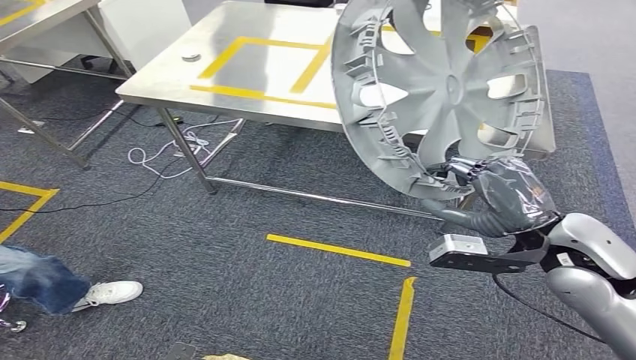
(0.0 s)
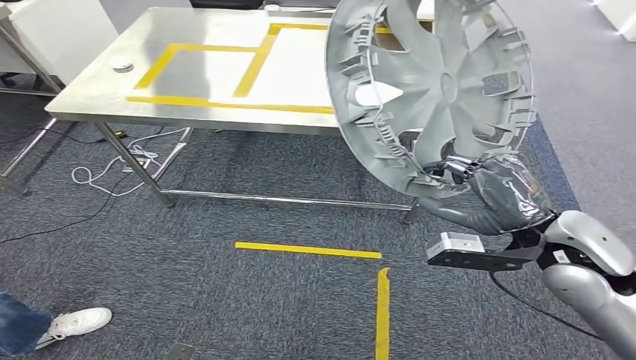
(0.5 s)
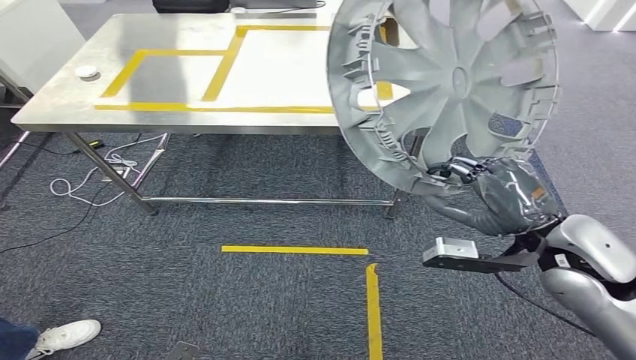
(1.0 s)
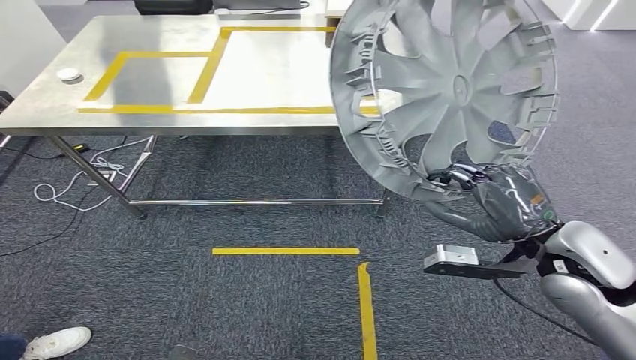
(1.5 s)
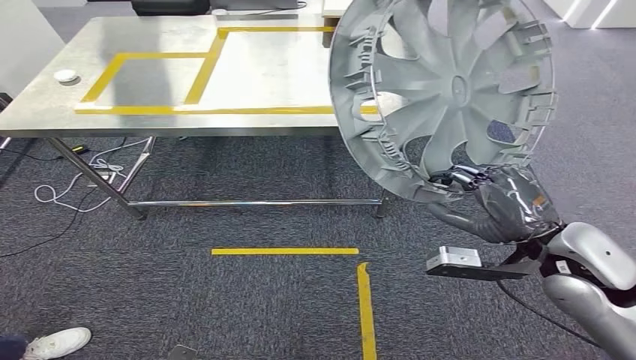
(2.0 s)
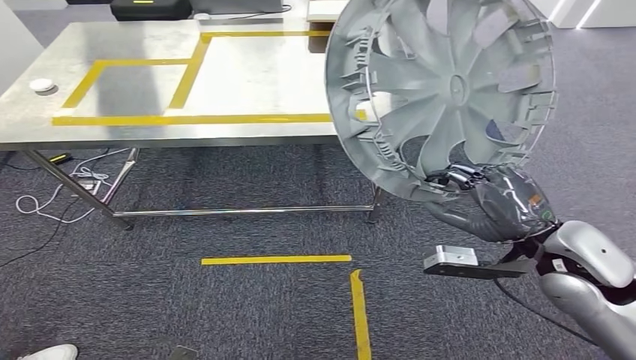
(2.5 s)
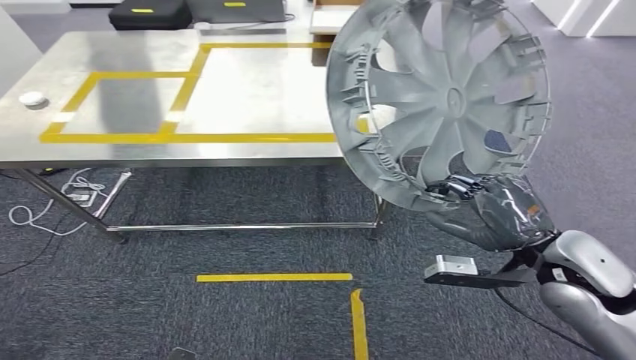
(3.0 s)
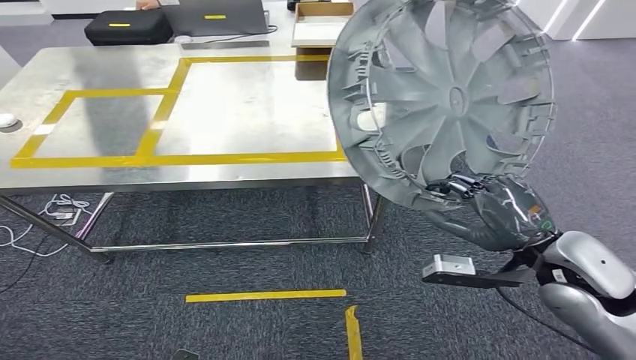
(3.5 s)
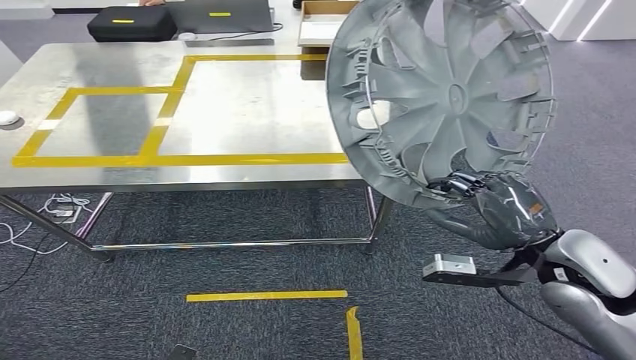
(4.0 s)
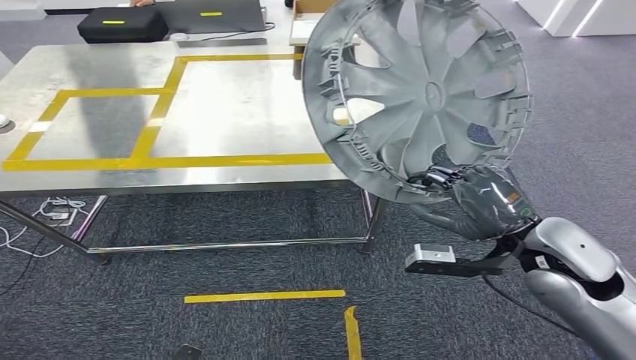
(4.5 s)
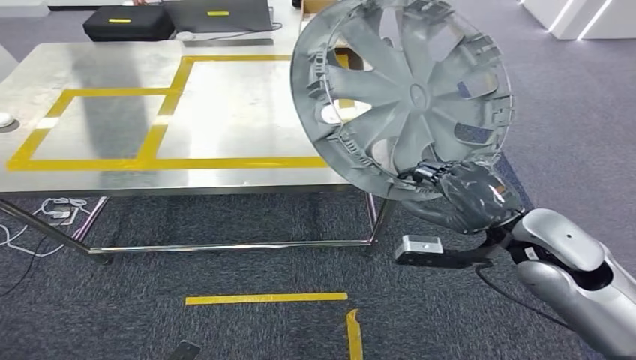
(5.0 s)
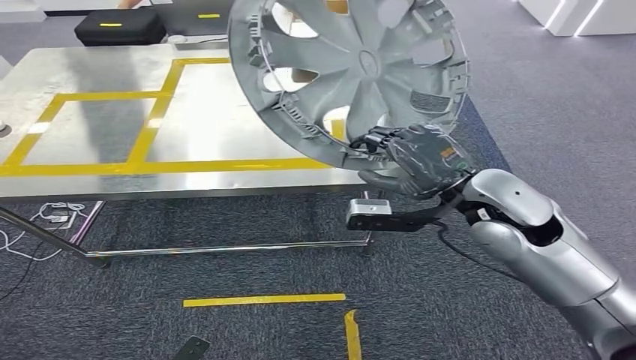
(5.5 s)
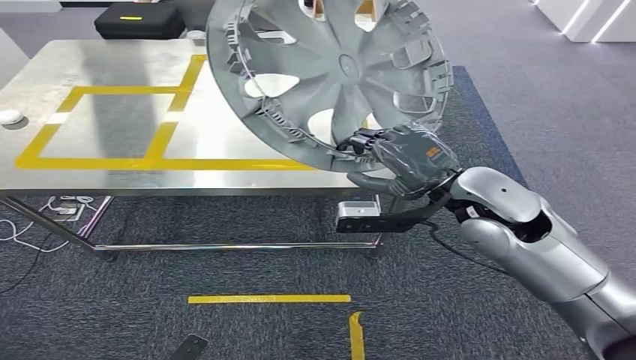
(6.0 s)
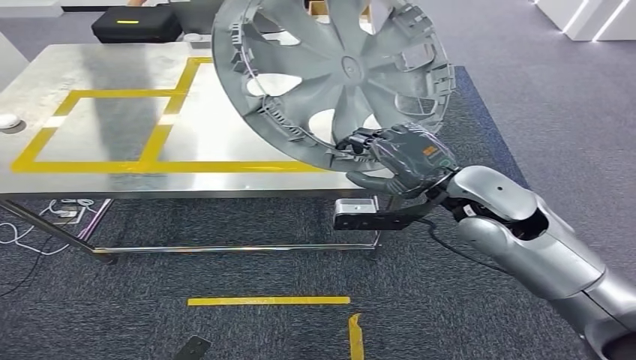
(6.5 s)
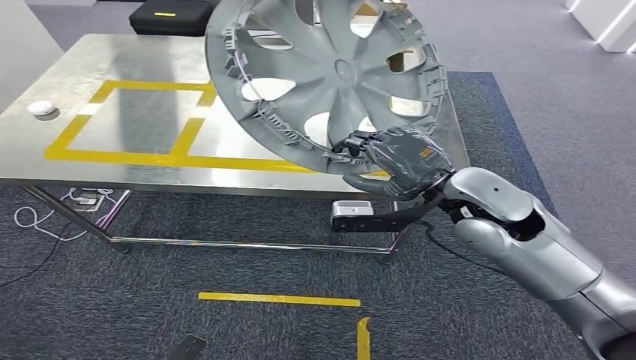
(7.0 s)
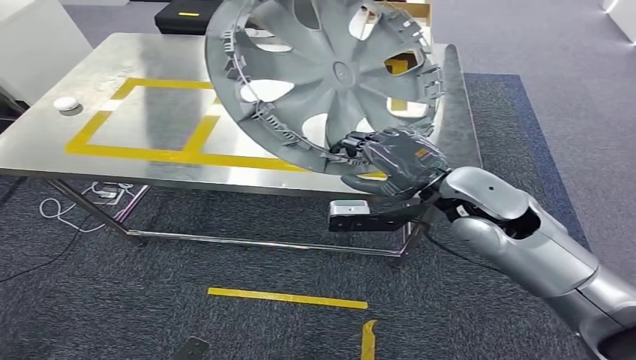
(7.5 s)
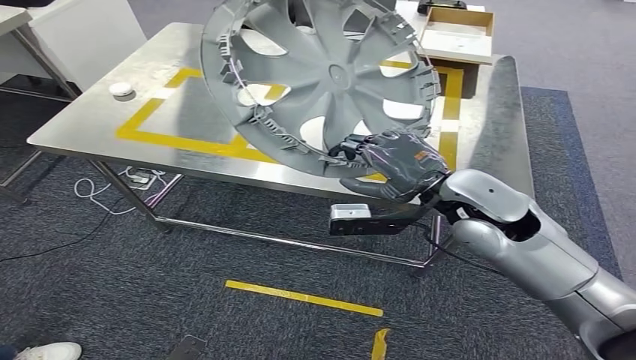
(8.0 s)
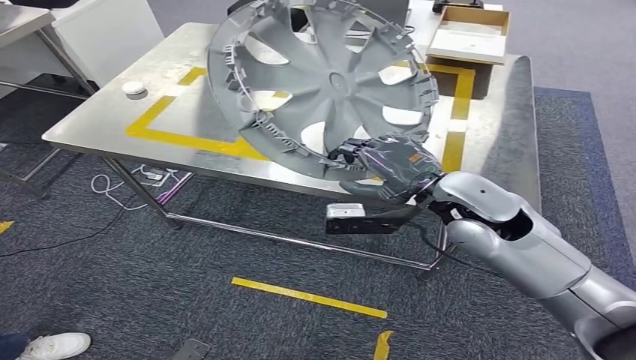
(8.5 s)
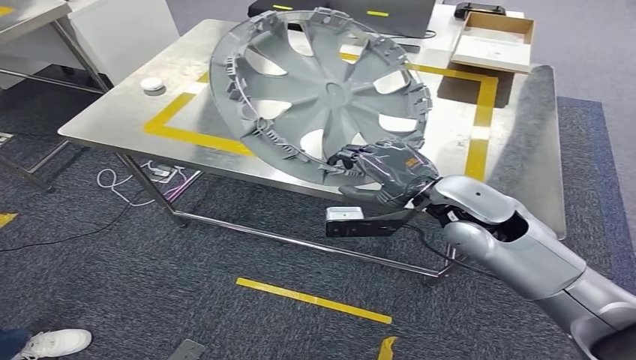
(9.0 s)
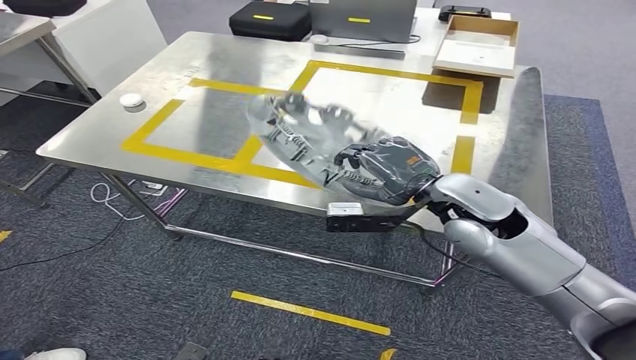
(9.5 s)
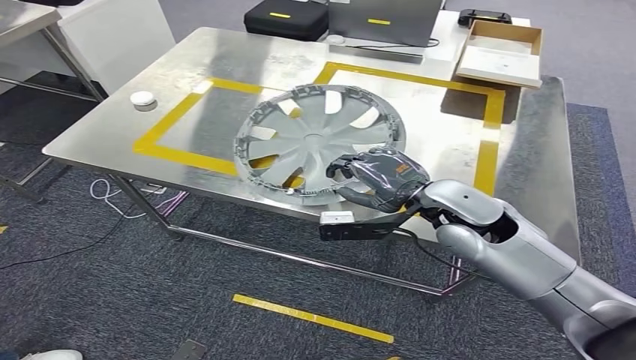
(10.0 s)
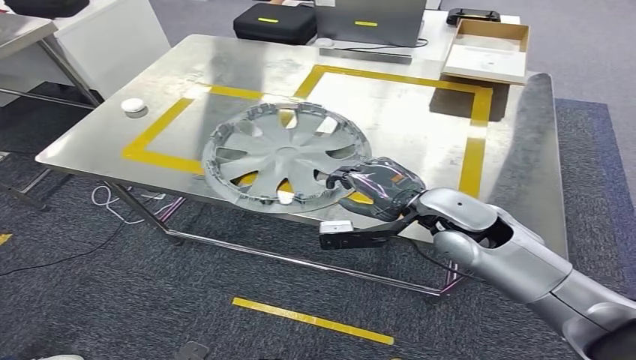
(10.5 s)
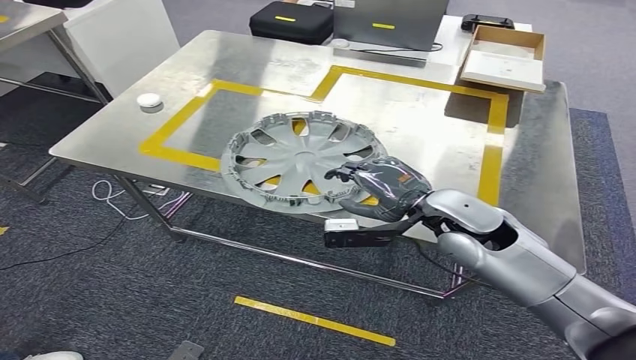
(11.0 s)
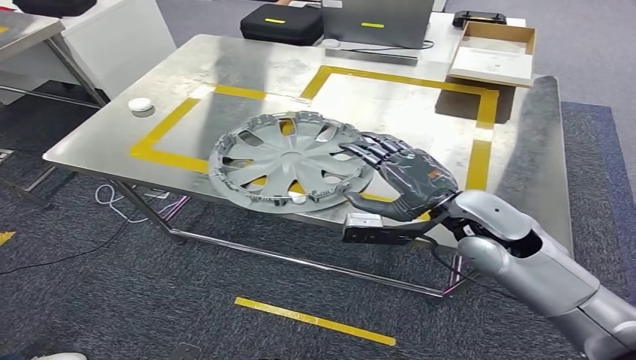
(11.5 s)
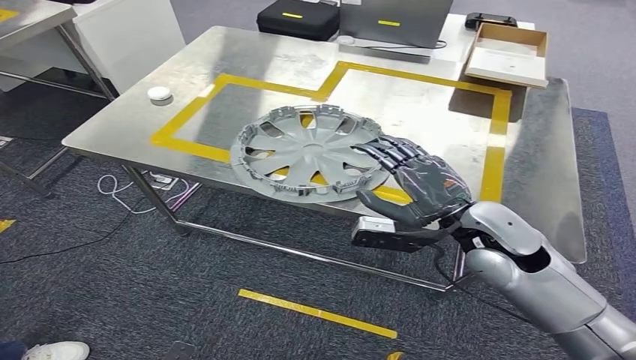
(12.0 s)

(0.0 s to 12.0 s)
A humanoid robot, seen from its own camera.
Step, 2.0 s - 11.5 s: Insert the small component into the corresponding slot on the workbench.

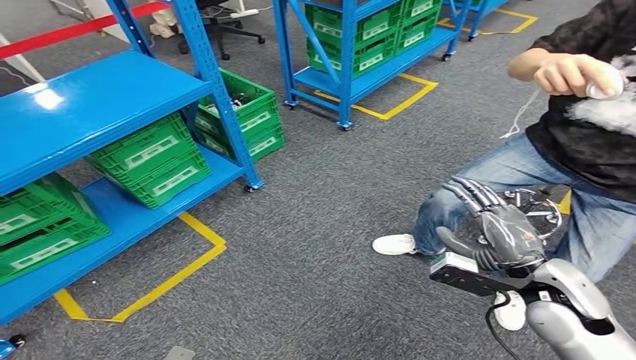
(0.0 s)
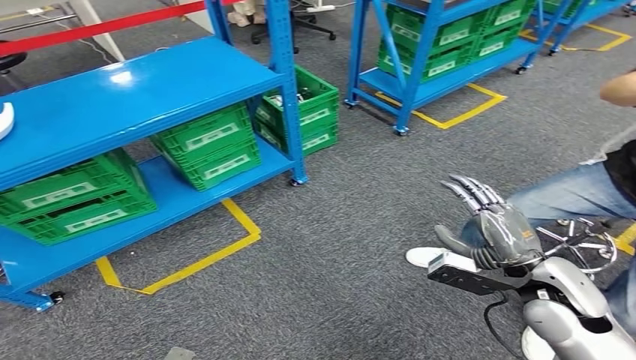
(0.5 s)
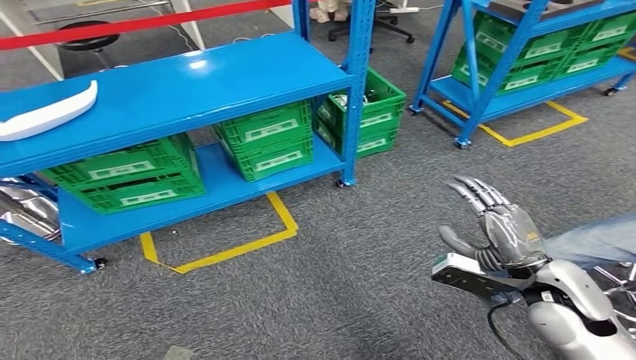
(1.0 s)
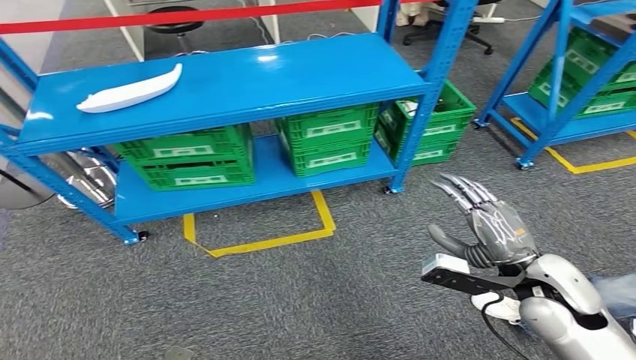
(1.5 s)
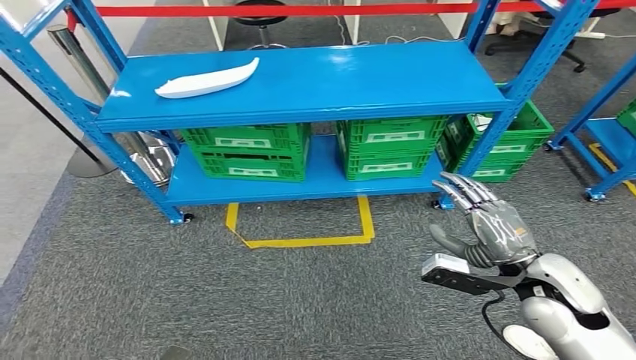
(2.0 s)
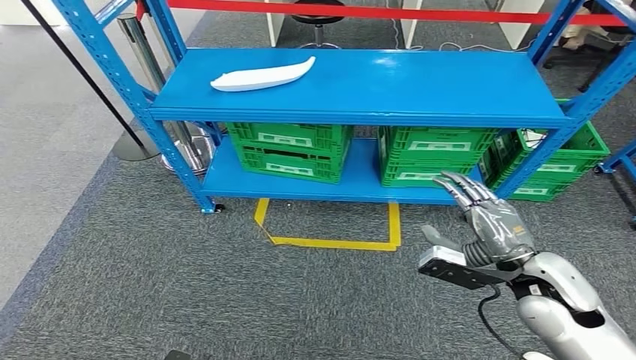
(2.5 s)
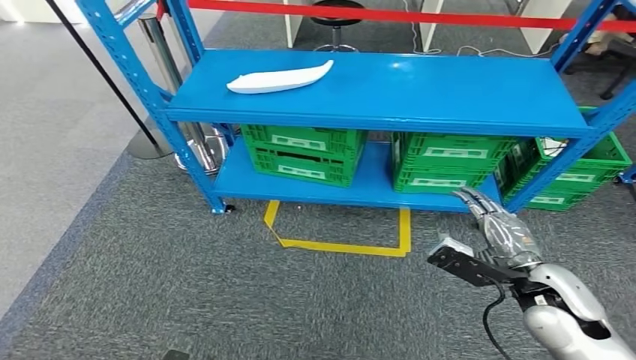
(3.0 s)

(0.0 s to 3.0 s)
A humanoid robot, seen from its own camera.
Step, 0.0 s - 2.5 s: Move to the initial position of the workbench.
